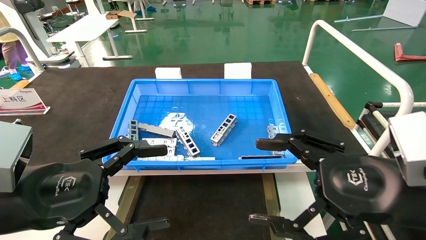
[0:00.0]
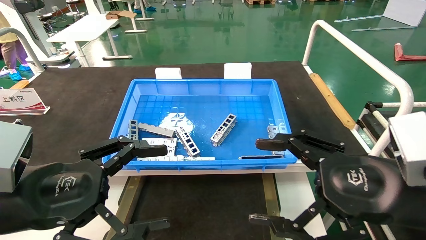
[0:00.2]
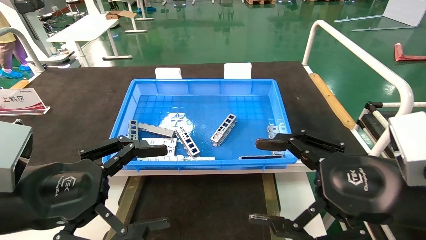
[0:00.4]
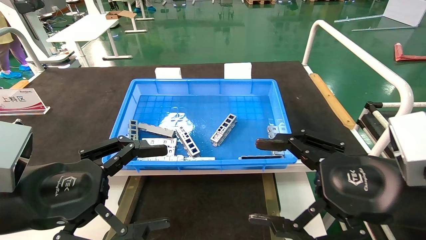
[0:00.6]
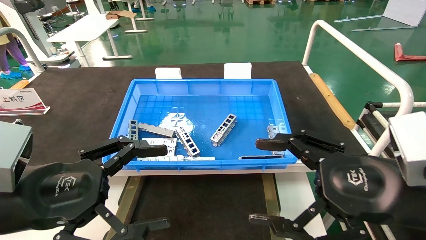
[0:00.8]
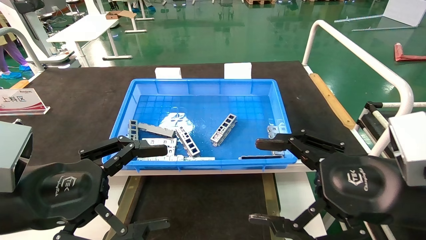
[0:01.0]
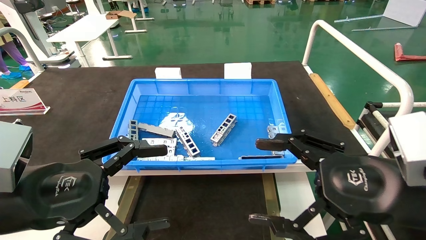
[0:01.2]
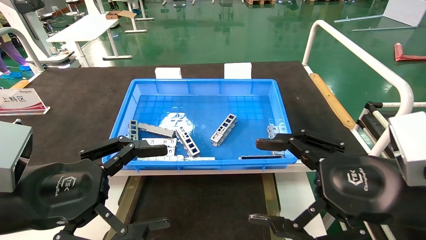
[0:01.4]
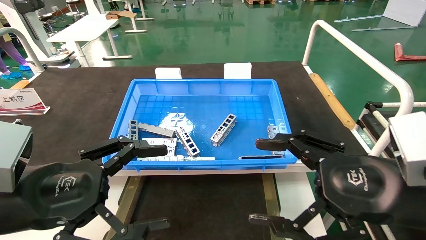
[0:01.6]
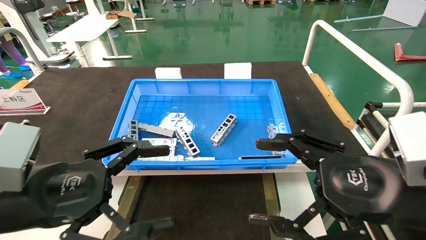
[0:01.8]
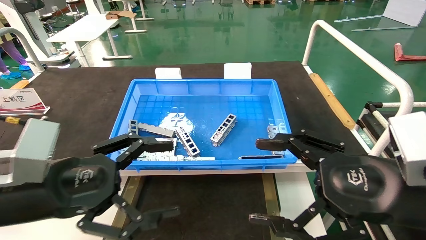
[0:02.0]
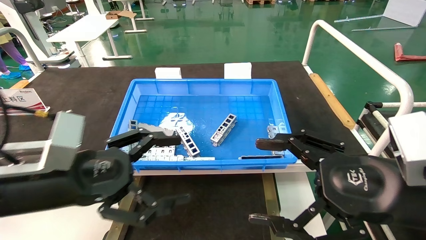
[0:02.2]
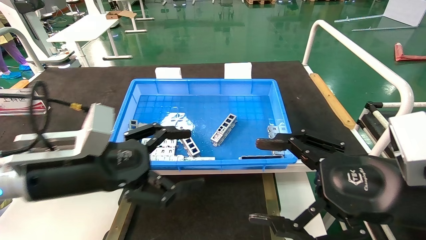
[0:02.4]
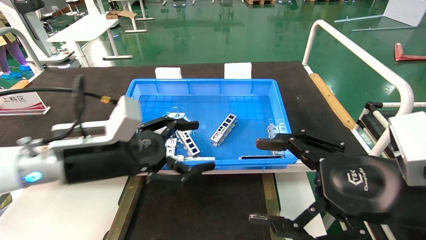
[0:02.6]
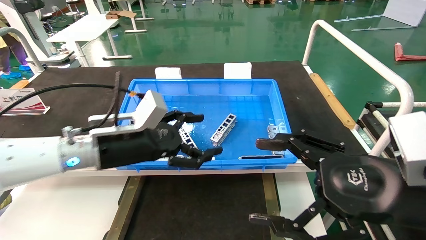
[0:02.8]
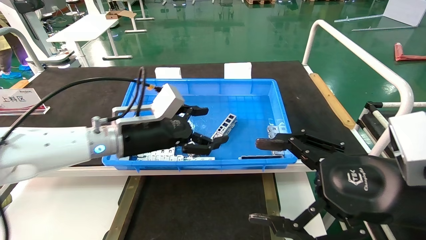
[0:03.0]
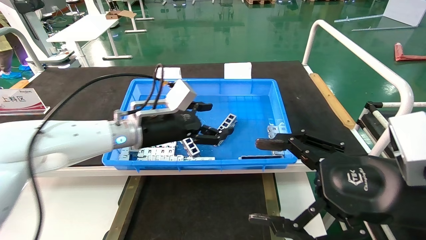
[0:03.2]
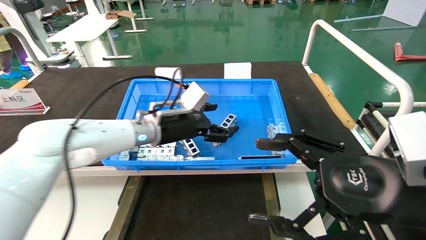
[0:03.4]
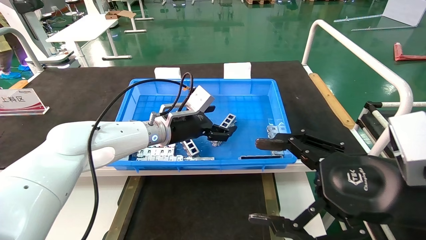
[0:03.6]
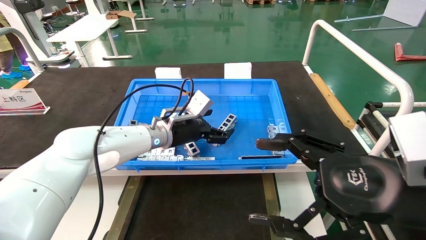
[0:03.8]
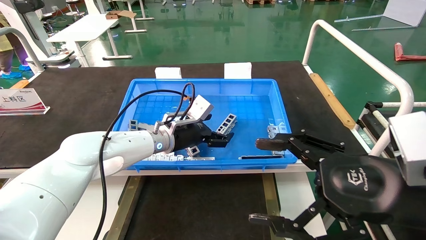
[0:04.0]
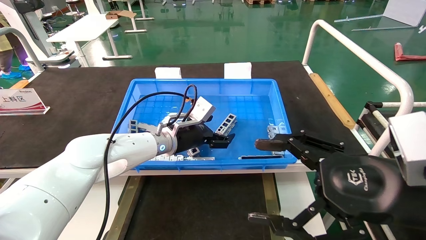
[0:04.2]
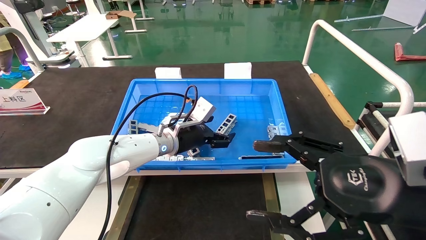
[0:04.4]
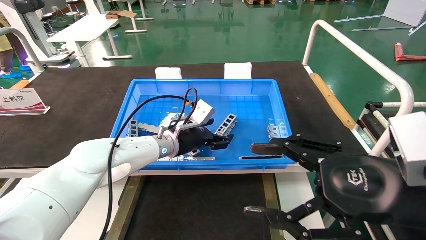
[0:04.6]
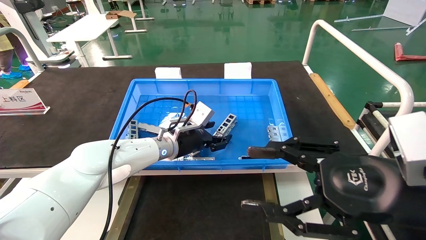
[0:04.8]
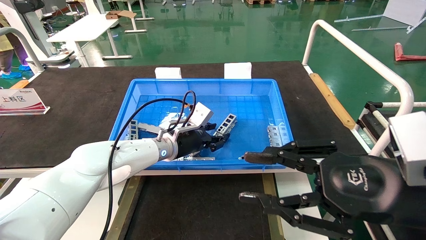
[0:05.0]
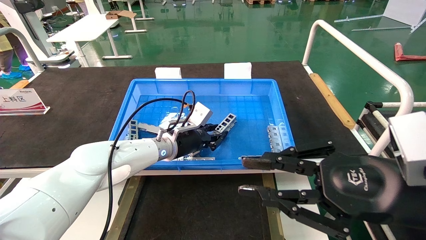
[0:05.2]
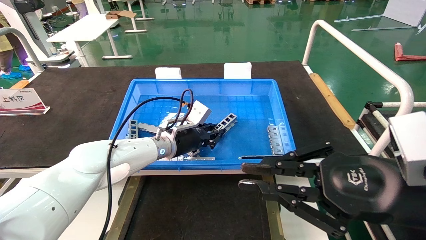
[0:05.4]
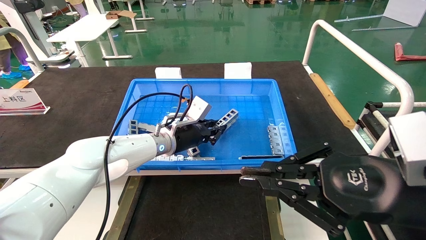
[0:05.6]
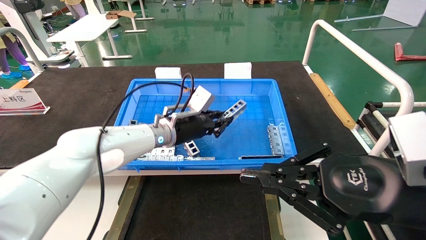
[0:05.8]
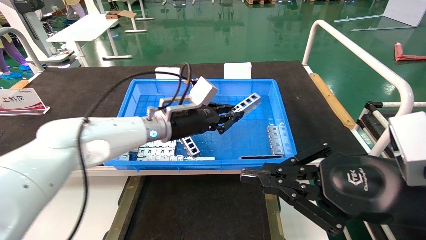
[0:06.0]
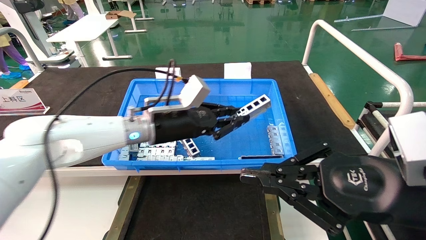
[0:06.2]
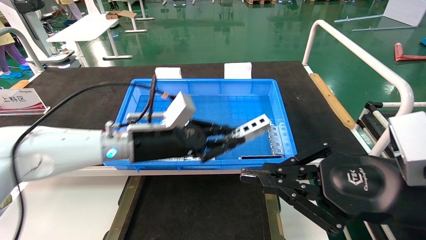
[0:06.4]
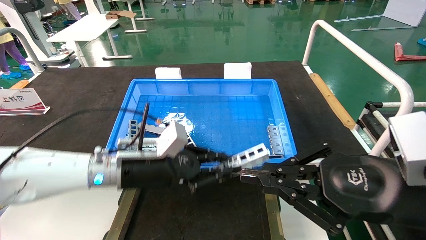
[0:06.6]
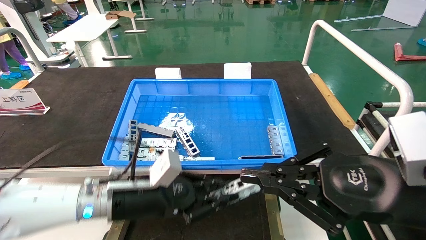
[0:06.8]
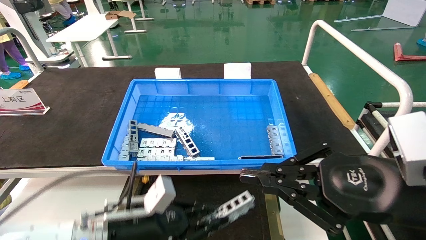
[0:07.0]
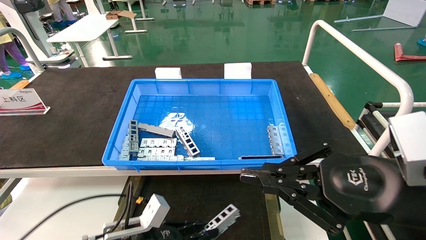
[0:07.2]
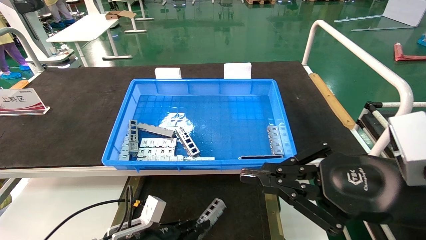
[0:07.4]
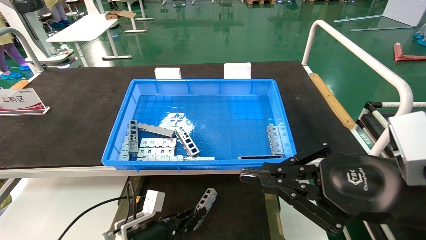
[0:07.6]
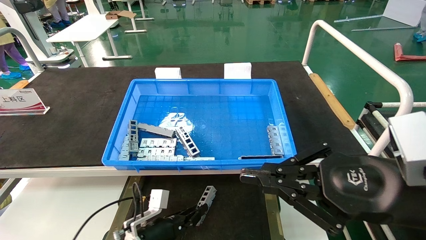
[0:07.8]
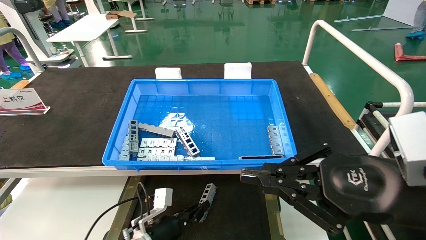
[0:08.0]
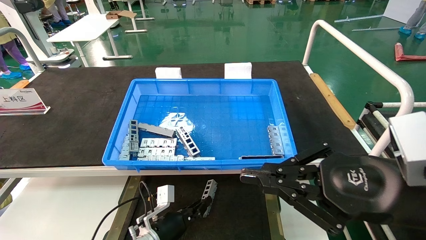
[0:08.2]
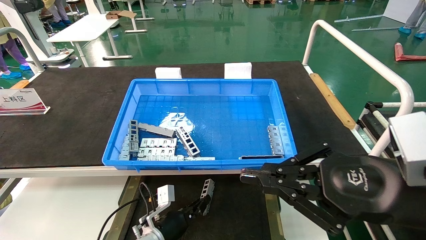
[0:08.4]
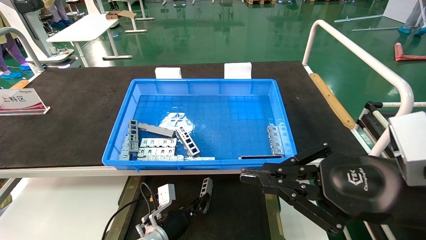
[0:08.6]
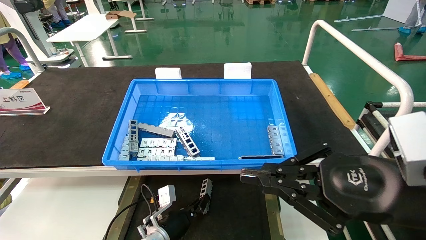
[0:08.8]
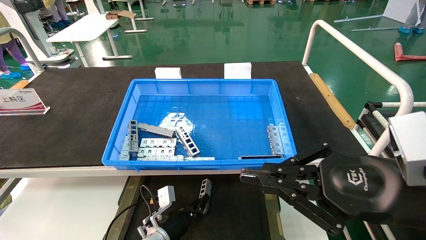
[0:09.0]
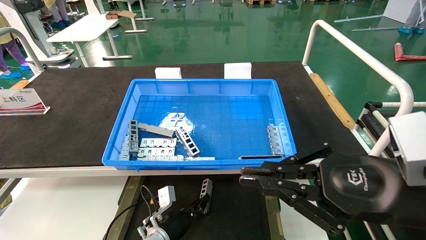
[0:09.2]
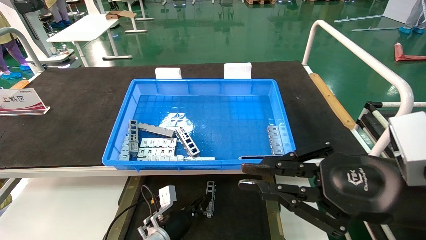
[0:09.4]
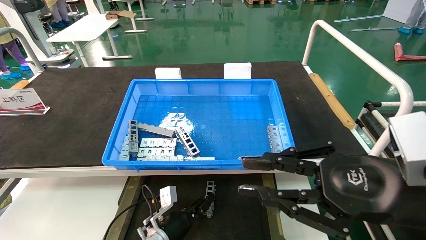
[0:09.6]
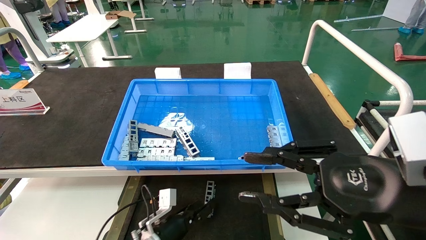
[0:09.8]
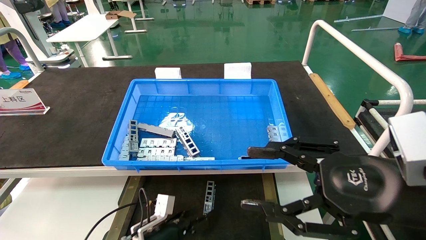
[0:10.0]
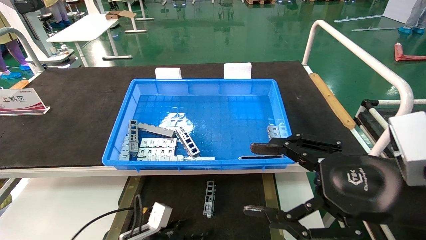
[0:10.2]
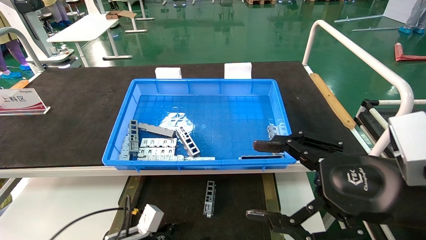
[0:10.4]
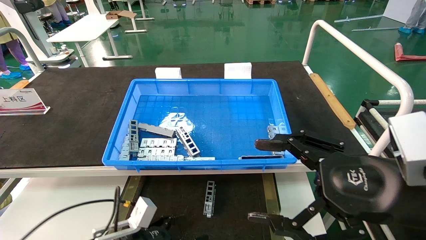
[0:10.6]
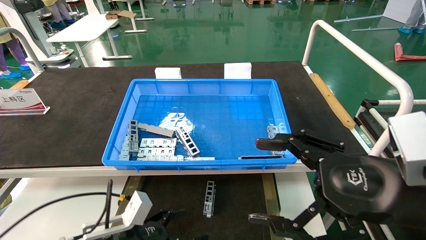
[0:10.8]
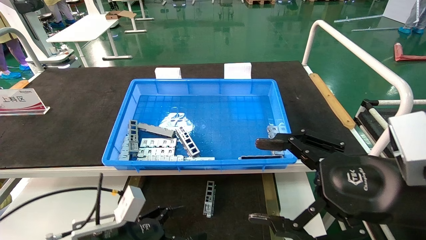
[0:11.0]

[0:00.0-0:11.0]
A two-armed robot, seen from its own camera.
Task of the whole recording: Grasp the part with one hand and place it on the black container.
Step, 0:02.0 to 0:05.8: Pick up the front USB bracket from the feeding area.
Step, 0:06.0 to 0:09.6: Place the front USB bracket into the box.
0:00.0 to 0:01.6: Both grippers stay put.
0:01.6 to 0:03.2: The left gripper goes some 25 cm forward and to the right.
0:03.2 to 0:04.8: The left gripper heads forward and downward, covering approximately 10 cm.
0:04.8 to 0:06.2: The right gripper closes up. Meanwhile the left gripper moves backward and upward, some 10 cm, and closes.
0:06.2 to 0:07.8: The left gripper travels downward by approximately 25 cm.
0:07.8 to 0:09.4: The left gripper changes place by some 5 cm.
0:09.4 to 0:11.0: The right gripper opens its fingers, while the left gripper shifts some 20 cm backward, upward and to the left, and opens up.
